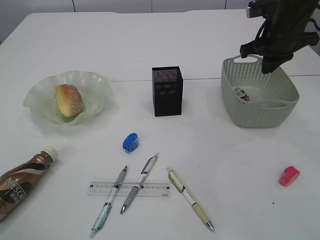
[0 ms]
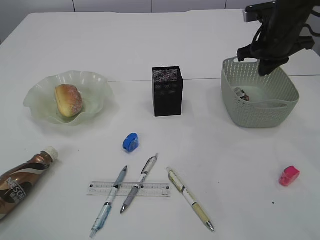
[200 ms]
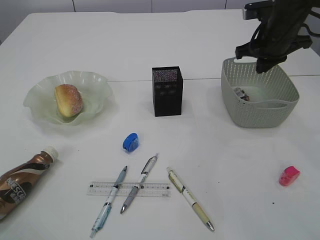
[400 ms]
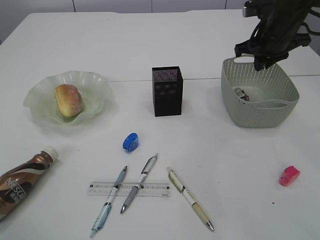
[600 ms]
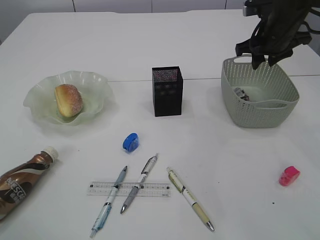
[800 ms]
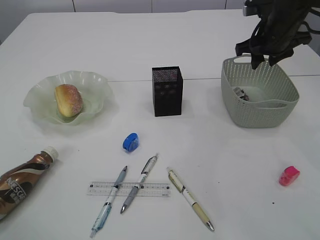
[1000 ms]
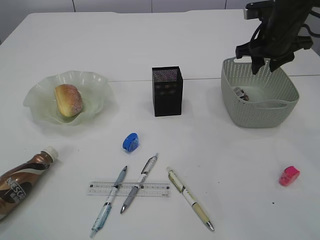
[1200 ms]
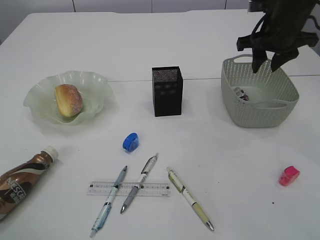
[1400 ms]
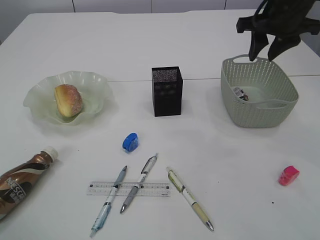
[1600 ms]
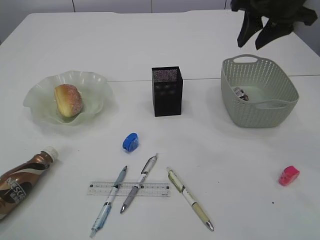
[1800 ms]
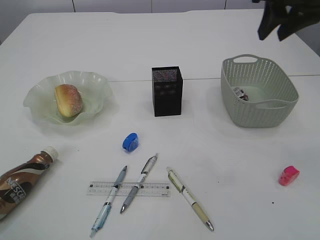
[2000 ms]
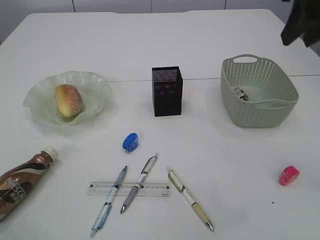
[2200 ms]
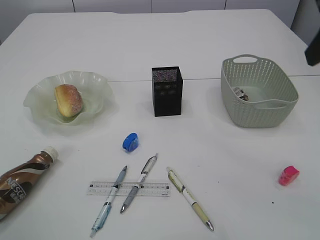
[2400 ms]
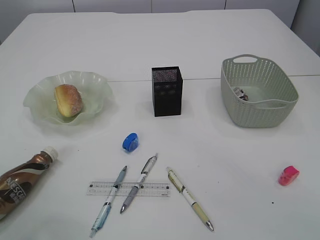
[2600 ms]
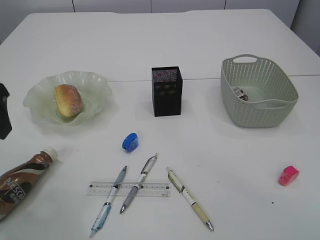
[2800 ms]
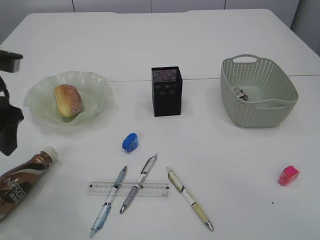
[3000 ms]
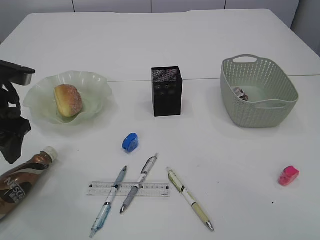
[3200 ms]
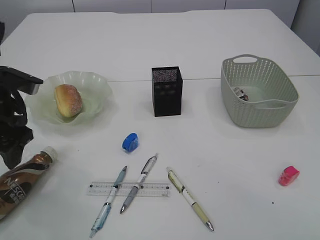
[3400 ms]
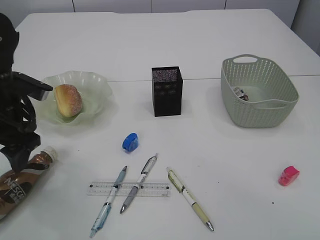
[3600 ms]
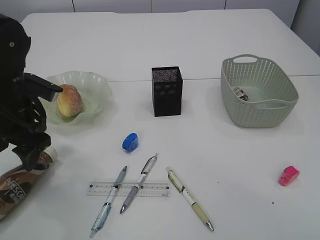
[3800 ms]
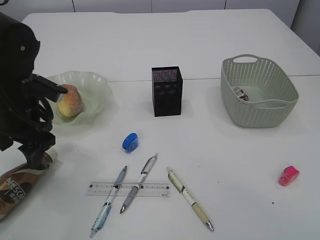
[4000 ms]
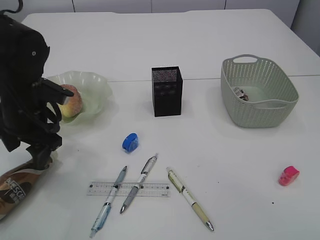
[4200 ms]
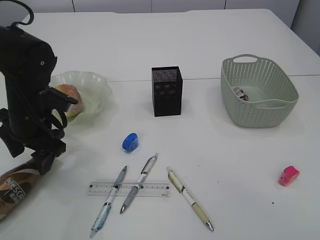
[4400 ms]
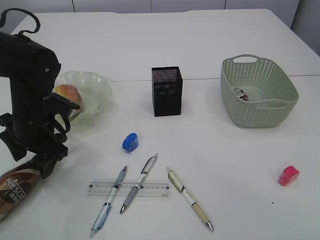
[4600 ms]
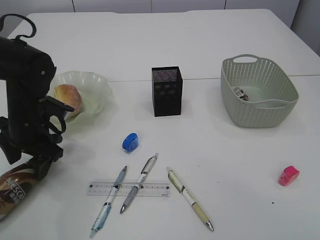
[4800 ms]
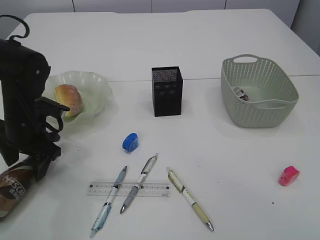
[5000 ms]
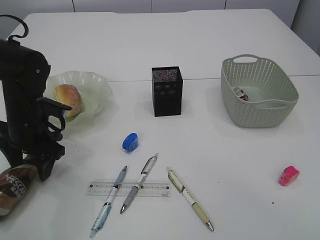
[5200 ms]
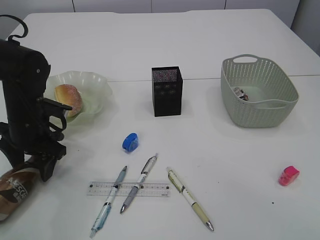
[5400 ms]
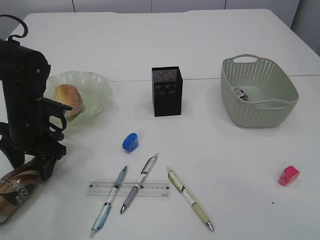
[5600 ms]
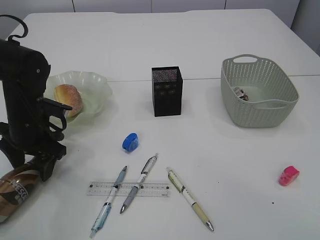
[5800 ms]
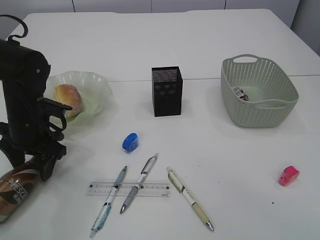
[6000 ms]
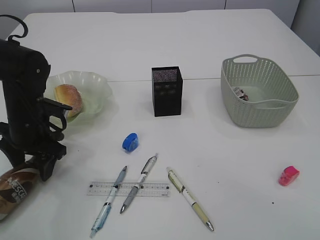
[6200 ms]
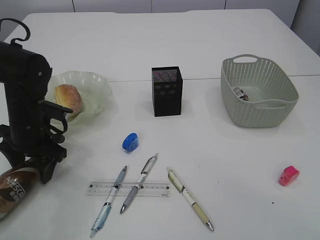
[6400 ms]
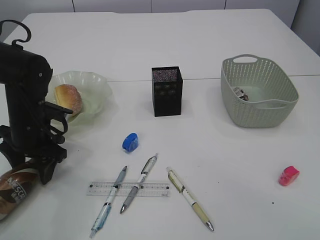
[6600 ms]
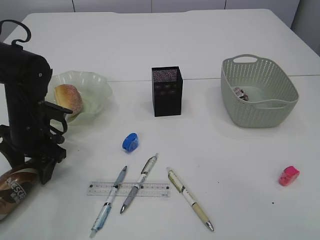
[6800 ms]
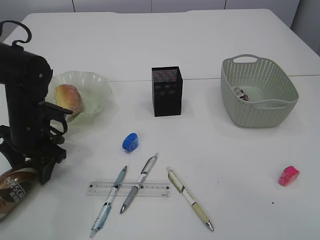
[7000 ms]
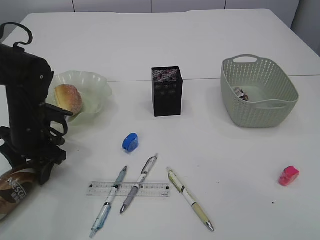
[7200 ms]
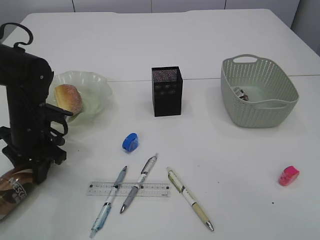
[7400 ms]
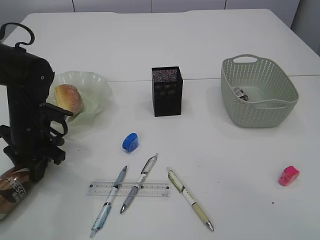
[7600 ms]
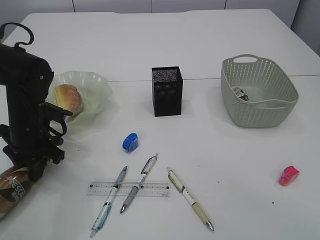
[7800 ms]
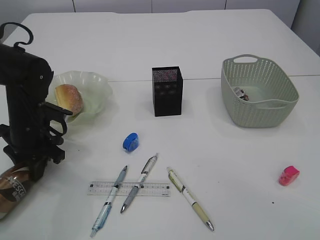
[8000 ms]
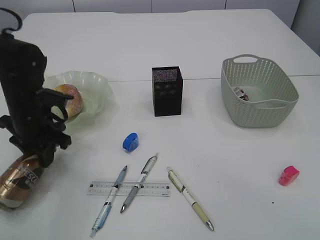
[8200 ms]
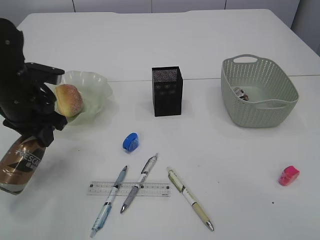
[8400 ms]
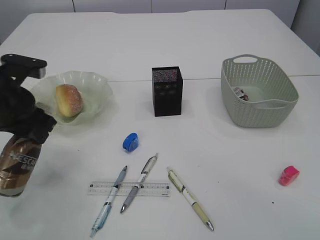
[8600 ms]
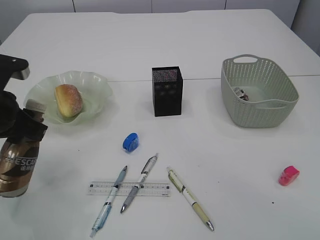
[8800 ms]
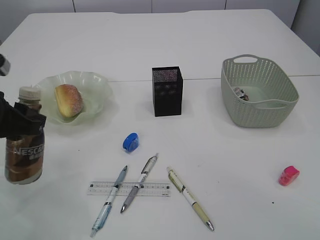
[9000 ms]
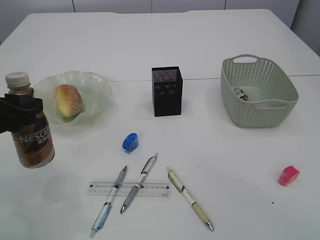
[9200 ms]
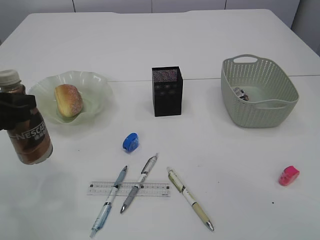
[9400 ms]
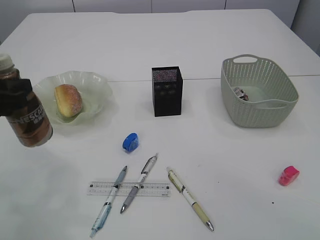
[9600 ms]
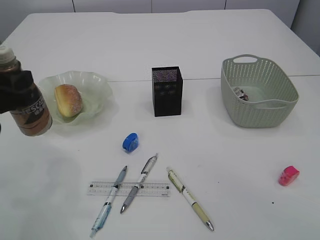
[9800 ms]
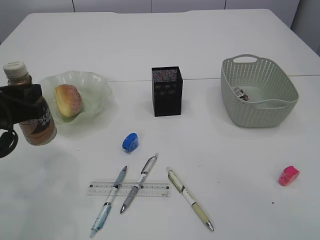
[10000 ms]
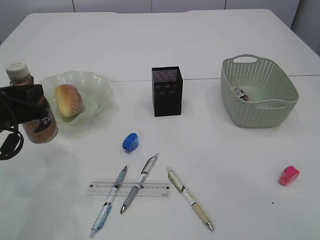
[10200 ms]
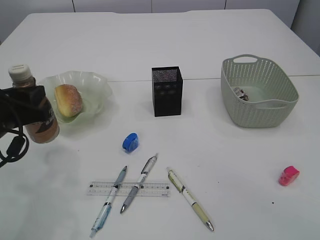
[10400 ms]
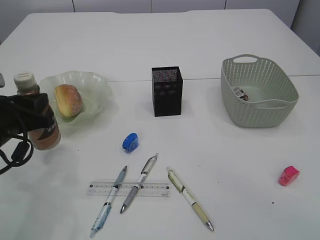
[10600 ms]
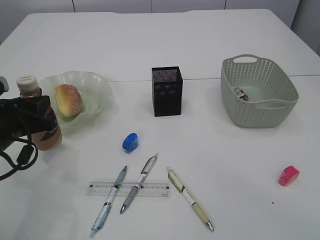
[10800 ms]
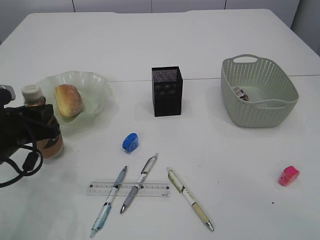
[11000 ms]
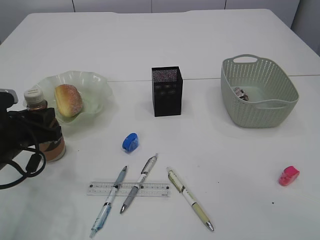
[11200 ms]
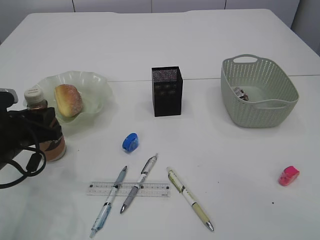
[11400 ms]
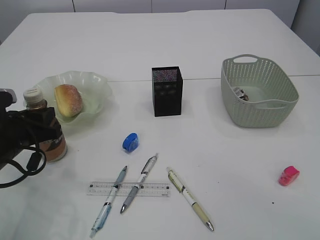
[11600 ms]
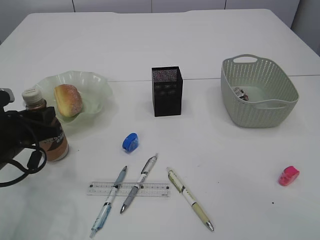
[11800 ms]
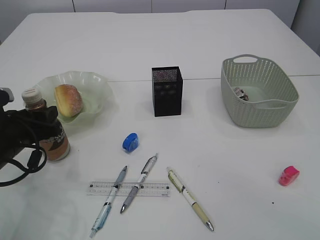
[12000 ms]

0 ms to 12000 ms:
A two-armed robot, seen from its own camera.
Step, 0 ms to 1800 ms: Place the waste paper in the basket.
Step, 2000 ms to 8400 ms: Pick up the bottle with the left arm.
0 ms to 1600 ms: The right gripper moves roughly 5 cm, and opens up.
1600 ms to 3000 ms: The left gripper goes roughly 20 cm downward and forward. Meanwhile the right gripper is displaced backward by approximately 30 cm.
3000 ms to 4400 ms: The left gripper travels downward and forward by approximately 10 cm.
4400 ms to 6000 ms: The grippers stay close to where they were, moving slightly.
6000 ms to 7600 ms: The left gripper closes.
7600 ms to 9000 ms: The left gripper goes roughly 15 cm upward and backward.
9000 ms to 10400 ms: The left gripper ends up approximately 5 cm from where it was.
10400 ms to 12000 ms: The left gripper travels downward by about 5 cm.

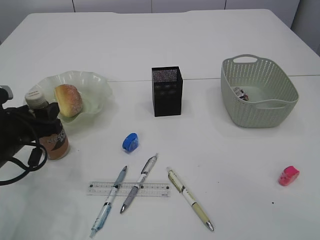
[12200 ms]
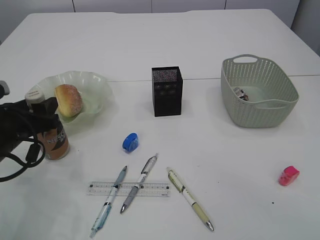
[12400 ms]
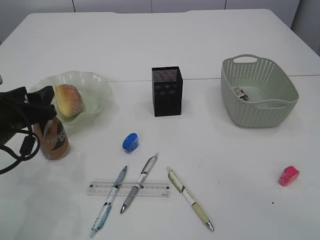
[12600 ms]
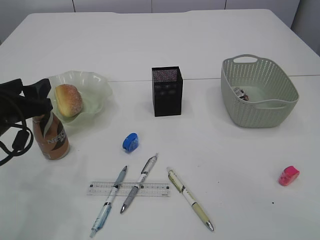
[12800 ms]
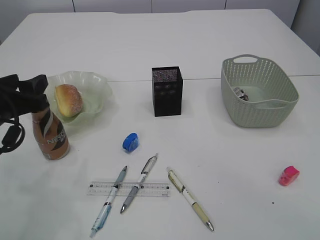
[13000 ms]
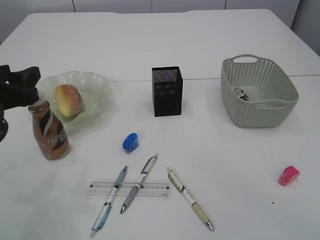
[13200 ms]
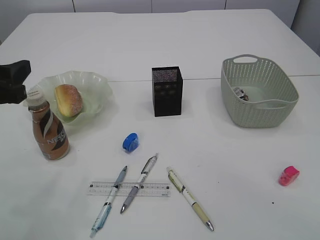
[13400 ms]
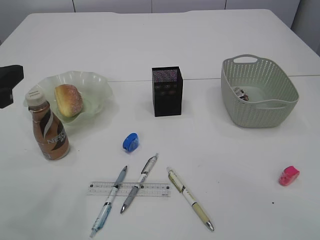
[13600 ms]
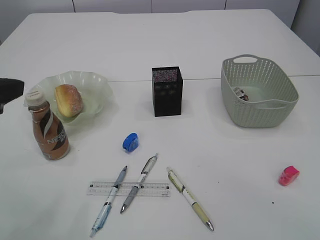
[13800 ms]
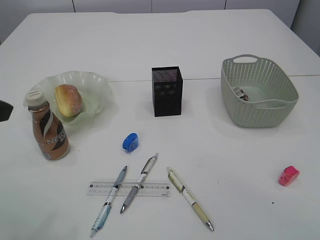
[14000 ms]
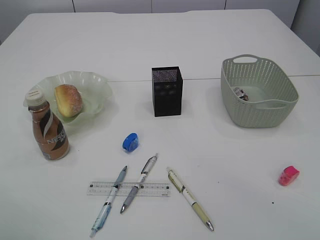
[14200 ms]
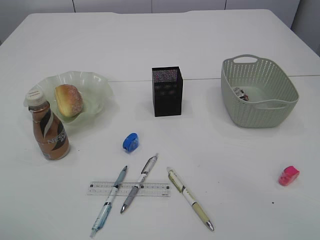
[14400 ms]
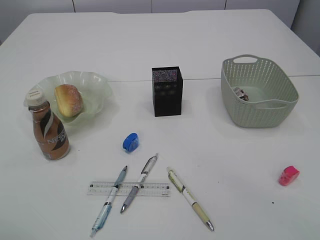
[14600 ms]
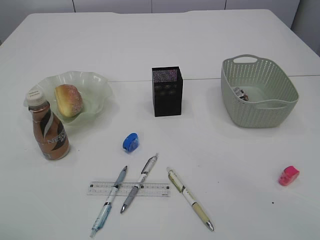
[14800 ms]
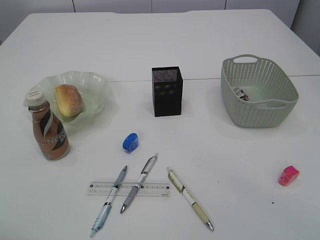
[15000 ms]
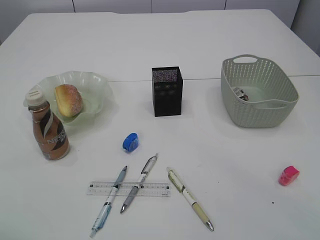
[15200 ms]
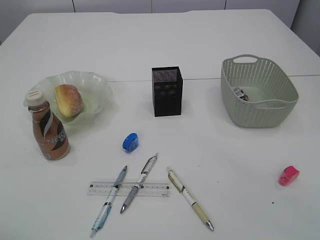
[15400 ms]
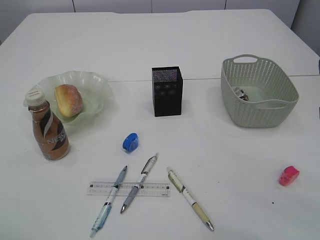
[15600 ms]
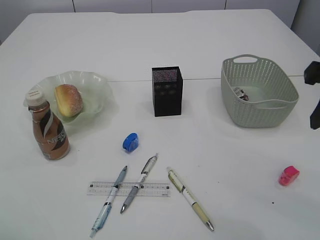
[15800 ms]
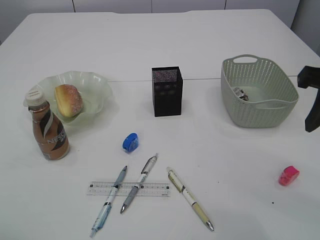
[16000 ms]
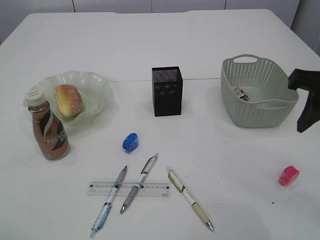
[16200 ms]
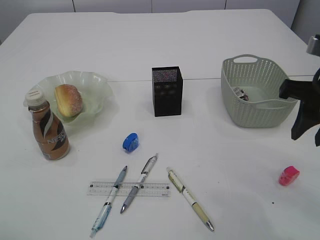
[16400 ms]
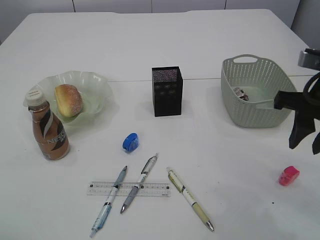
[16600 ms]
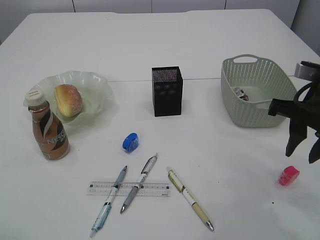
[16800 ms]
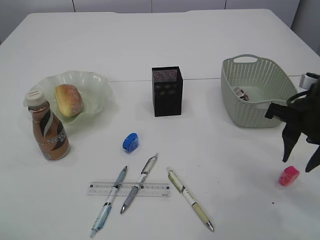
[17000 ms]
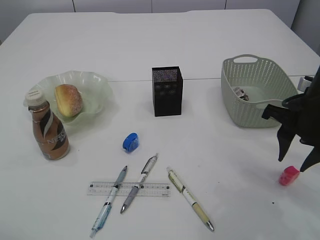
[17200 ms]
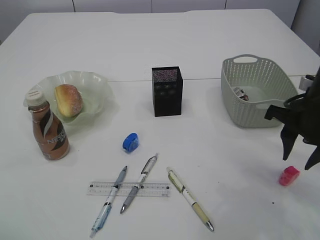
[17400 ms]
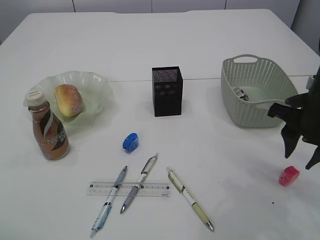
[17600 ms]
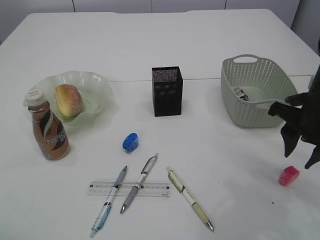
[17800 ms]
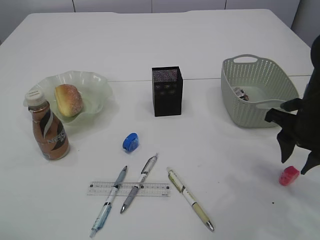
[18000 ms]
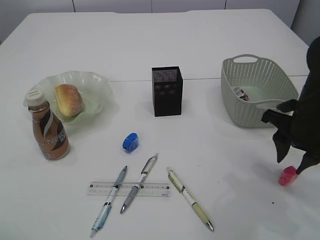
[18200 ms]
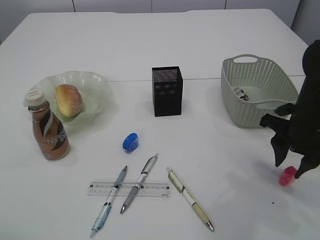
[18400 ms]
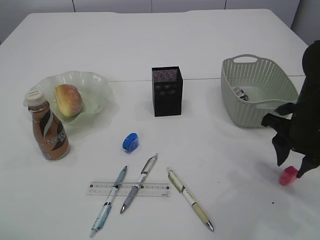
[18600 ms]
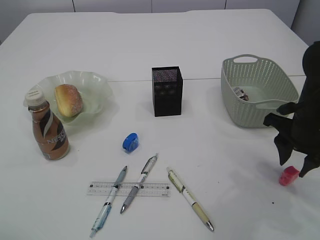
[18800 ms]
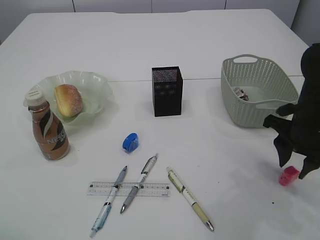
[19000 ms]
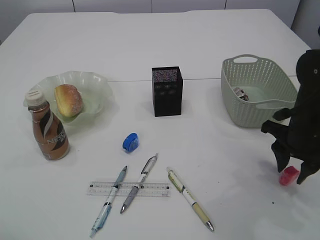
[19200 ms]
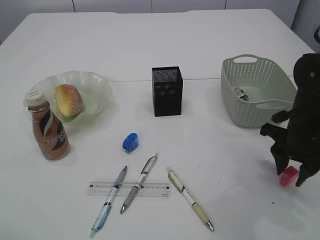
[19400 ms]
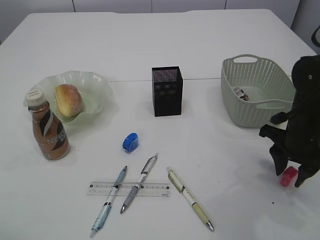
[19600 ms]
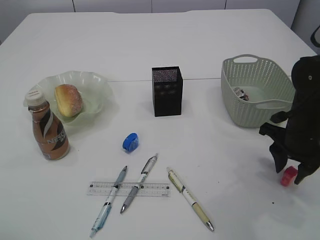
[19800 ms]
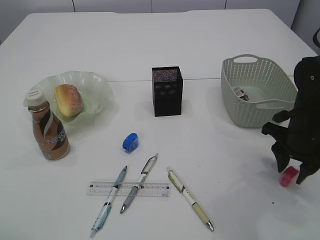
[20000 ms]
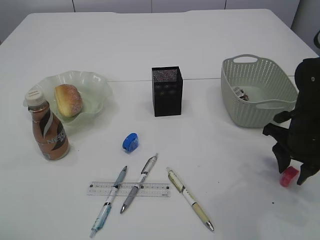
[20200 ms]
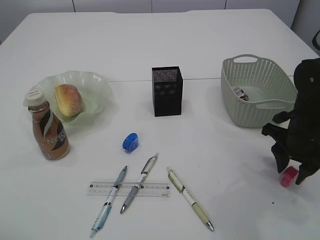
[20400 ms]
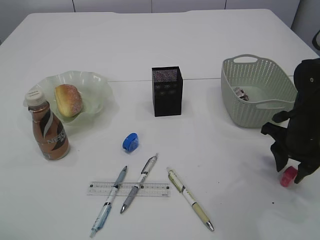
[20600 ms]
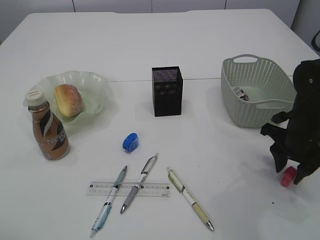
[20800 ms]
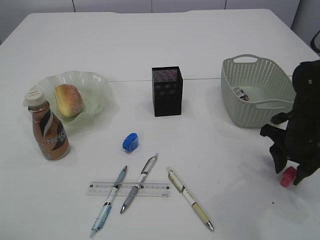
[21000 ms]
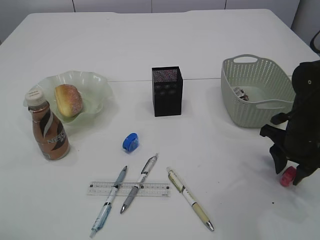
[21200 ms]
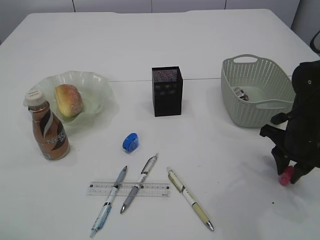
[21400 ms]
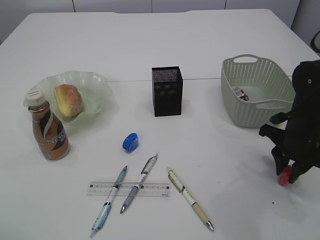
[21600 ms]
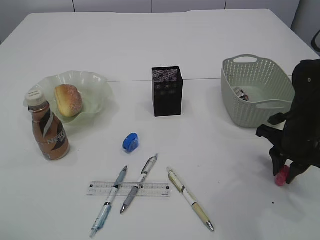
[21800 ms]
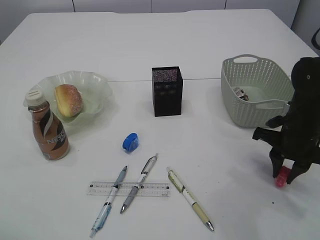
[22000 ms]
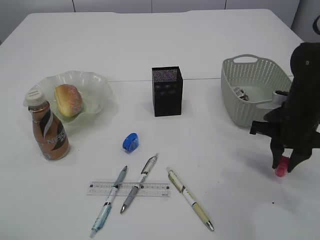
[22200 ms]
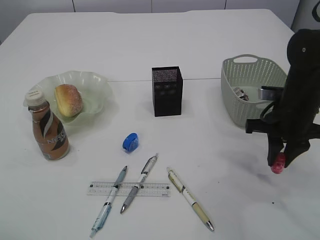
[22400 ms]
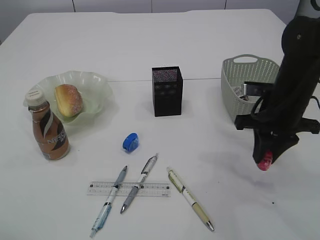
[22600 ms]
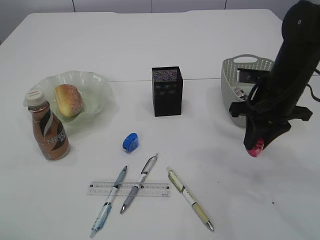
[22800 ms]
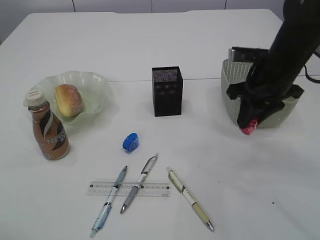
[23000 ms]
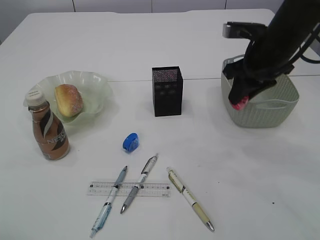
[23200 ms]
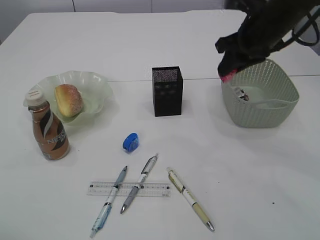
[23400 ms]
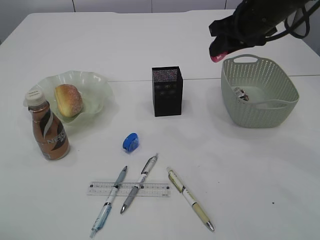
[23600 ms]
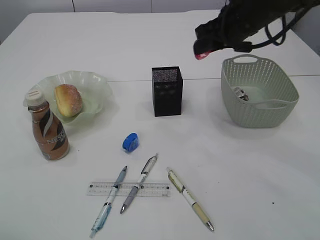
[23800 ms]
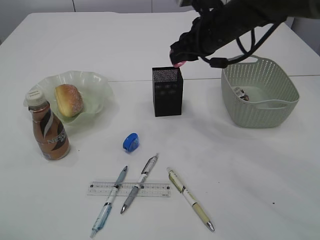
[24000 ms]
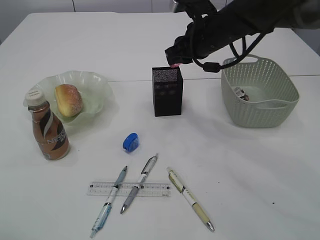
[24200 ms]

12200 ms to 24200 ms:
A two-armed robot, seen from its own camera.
Step, 14000 ms to 22600 ms: Pick up the red pencil sharpener.
12200 ms to 13800 ms: The left gripper is displaced upward and backward by about 15 cm.
13800 ms to 15200 ms: The left gripper goes approximately 5 cm backward.
15200 ms to 16600 ms: The right gripper heads forward and downward, covering about 15 cm.
16600 ms to 18200 ms: The right gripper shifts about 10 cm downward.
18200 ms to 19800 ms: The grippers make only small movements.
19800 ms to 21200 ms: Both grippers stay put.
21200 ms to 22600 ms: The right gripper shifts some 5 cm upward.
22600 ms to 24200 ms: The right gripper heads forward, to the left and upward, covering roughly 15 cm.
